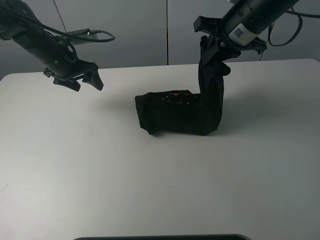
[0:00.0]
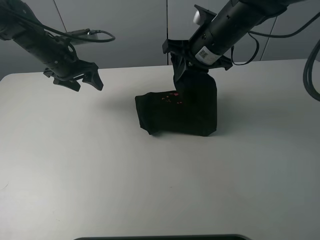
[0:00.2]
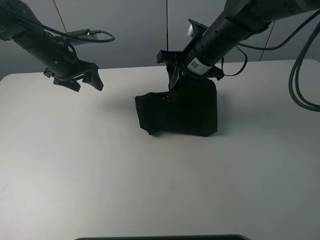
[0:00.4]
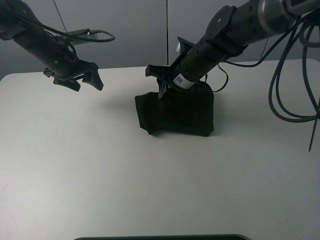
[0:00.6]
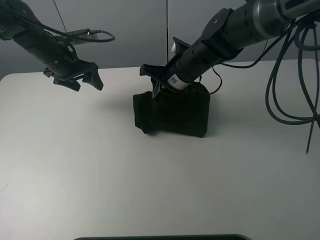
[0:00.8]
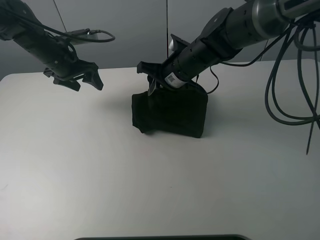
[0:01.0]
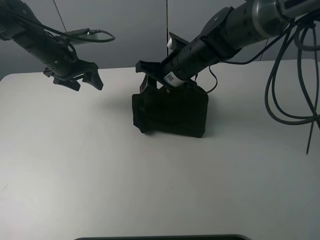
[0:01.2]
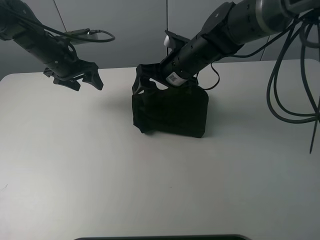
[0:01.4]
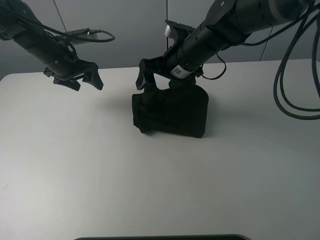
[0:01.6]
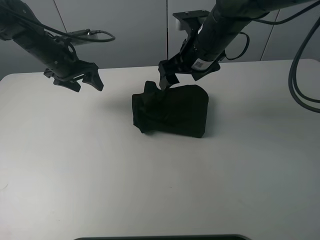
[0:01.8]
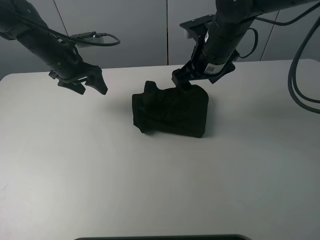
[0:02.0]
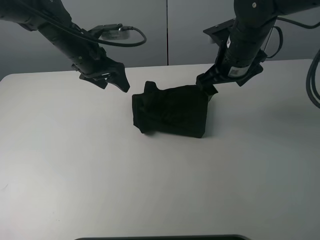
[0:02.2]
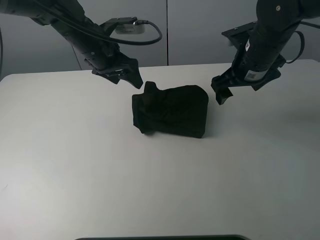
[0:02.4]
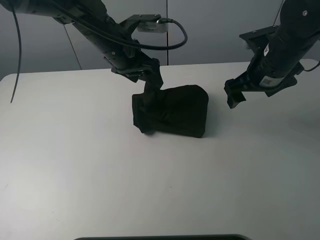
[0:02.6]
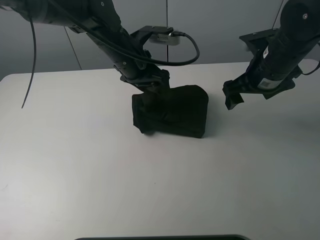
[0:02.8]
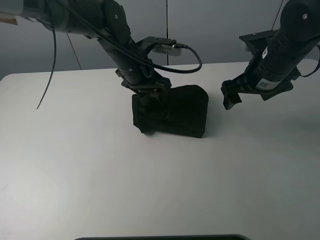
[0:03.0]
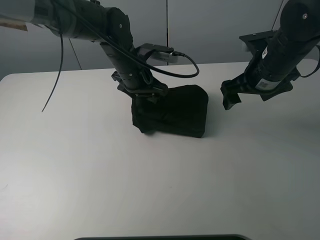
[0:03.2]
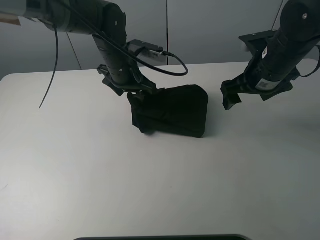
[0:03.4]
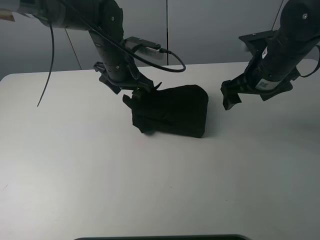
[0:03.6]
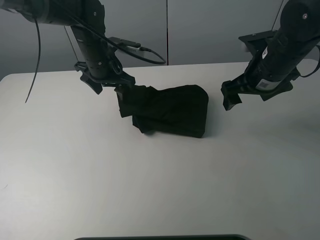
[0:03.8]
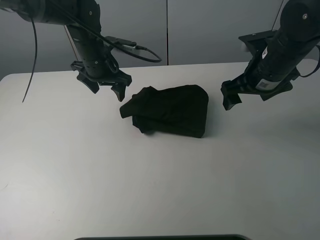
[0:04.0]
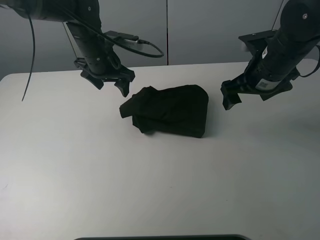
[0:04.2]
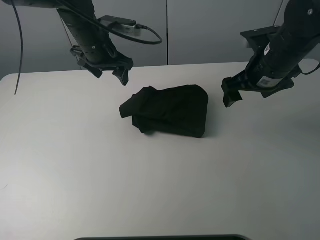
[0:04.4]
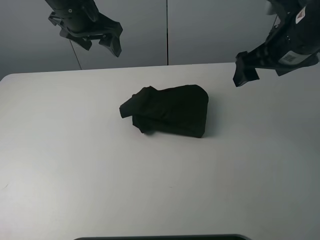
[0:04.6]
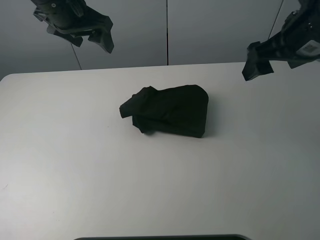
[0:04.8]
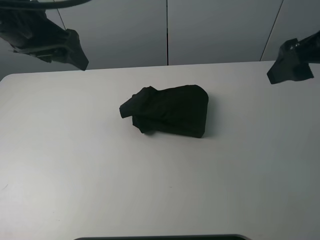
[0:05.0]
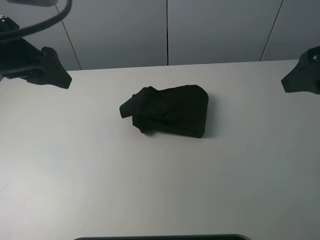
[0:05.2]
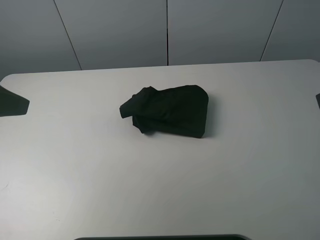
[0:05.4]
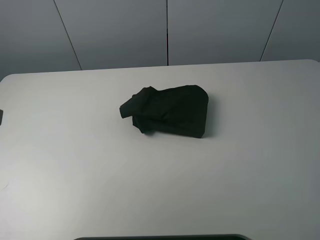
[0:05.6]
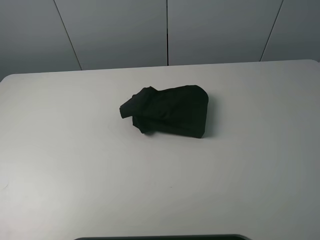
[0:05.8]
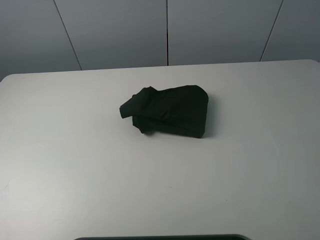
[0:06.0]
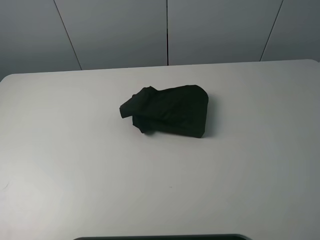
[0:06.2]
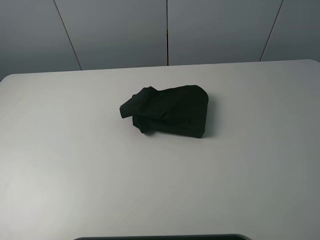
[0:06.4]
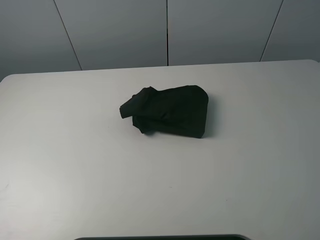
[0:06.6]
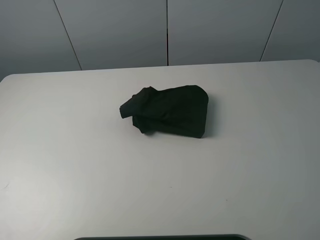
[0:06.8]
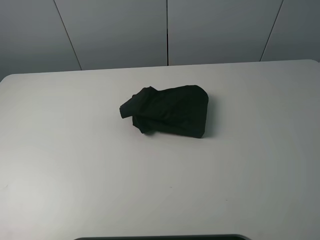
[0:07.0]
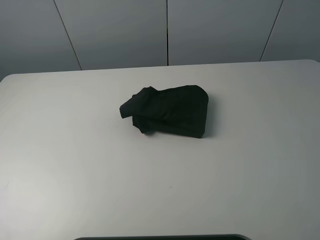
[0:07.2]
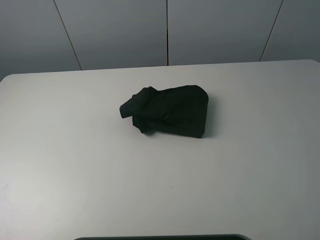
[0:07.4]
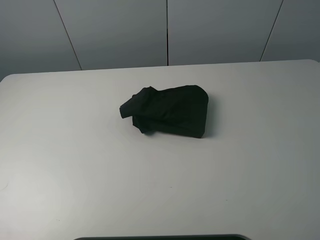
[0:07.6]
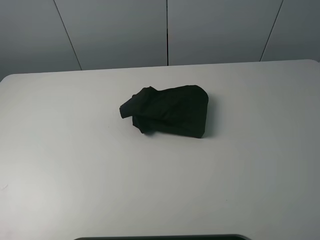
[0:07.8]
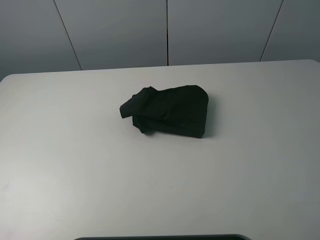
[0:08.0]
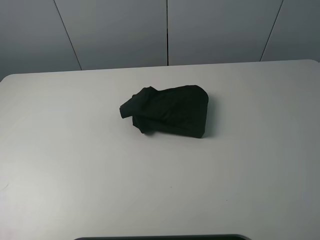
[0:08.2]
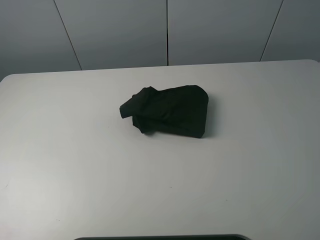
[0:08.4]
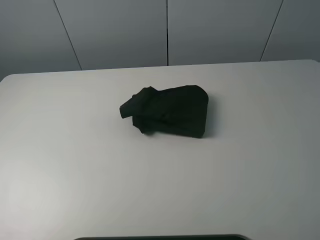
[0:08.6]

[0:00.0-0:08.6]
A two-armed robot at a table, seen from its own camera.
Task of the whole recording: fold the clothes on the table.
Step, 0:00.0 to 0:02.0: Fold the black T-shirt from right to left with right gripper.
Step, 0:02.2 to 0:03.4: Use the left gripper to tidy up the clothes.
0:00.0 to 0:01.4: The right gripper shifts about 15 cm to the left and downward, and opens its fingers.
0:01.4 to 0:02.8: The left gripper moves to the right and backward, approximately 20 cm. Meanwhile the right gripper travels to the right by about 15 cm.
0:02.8 to 0:04.4: The left gripper shifts about 5 cm to the left.
0:04.4 to 0:05.8: The right gripper moves backward and upward, roughly 30 cm, while the left gripper is displaced backward and to the left by approximately 40 cm.
